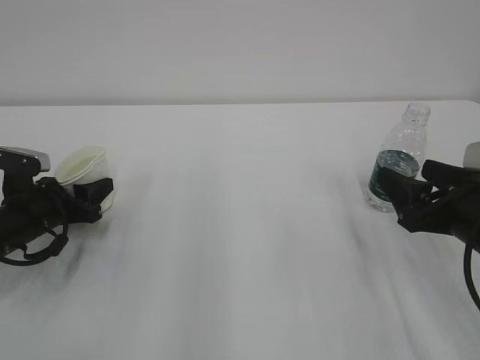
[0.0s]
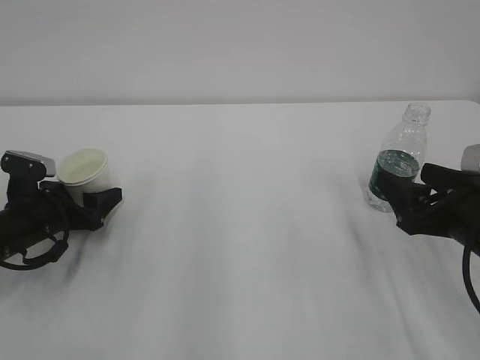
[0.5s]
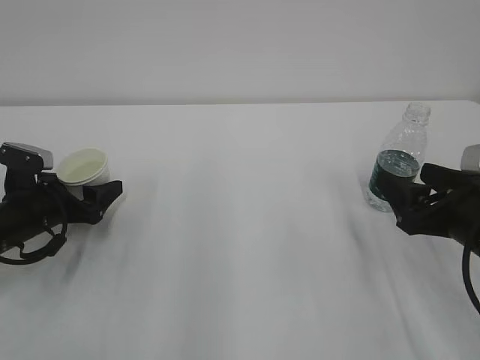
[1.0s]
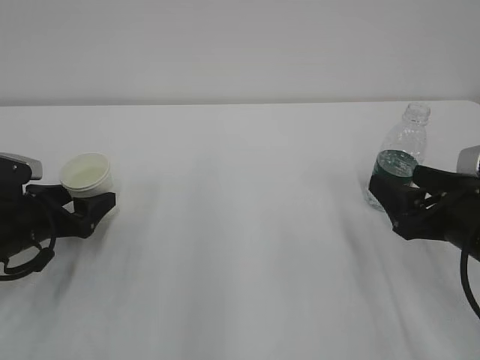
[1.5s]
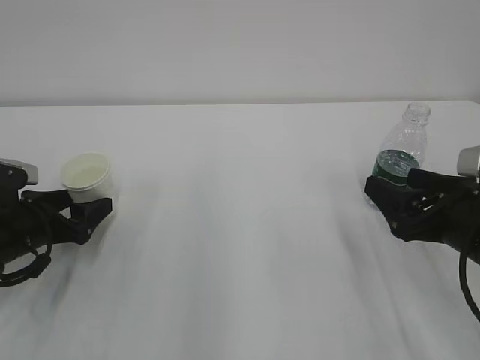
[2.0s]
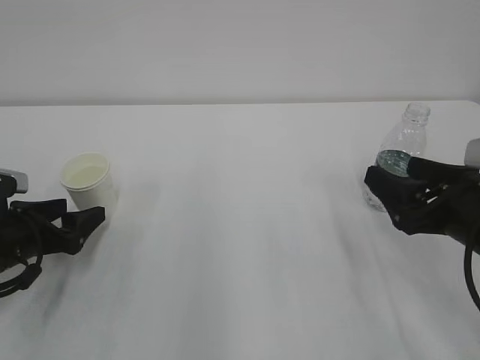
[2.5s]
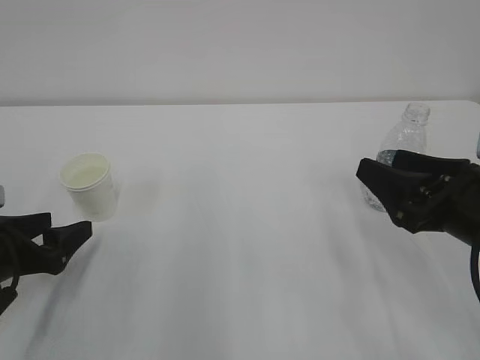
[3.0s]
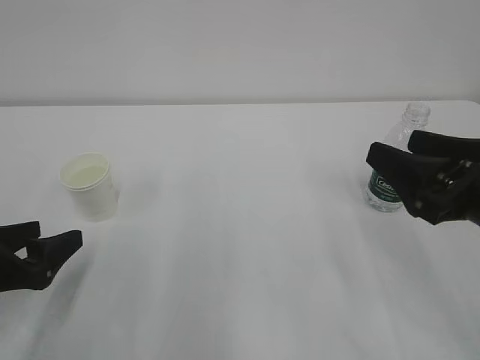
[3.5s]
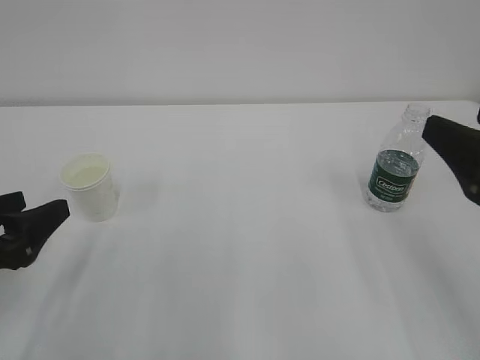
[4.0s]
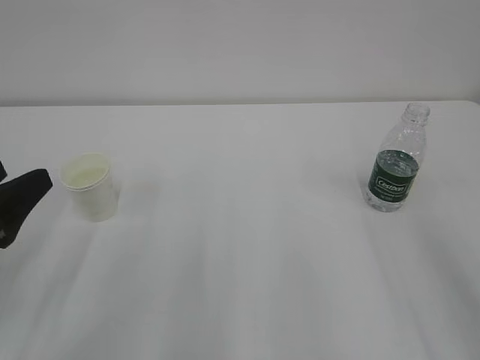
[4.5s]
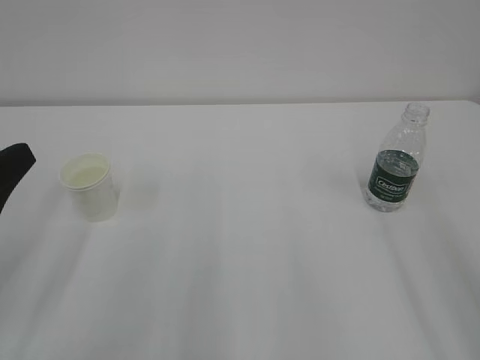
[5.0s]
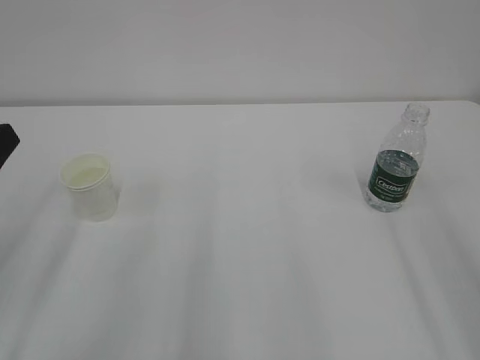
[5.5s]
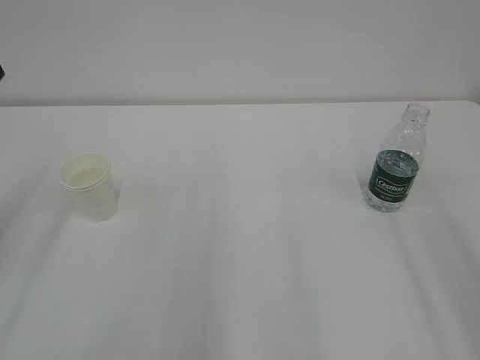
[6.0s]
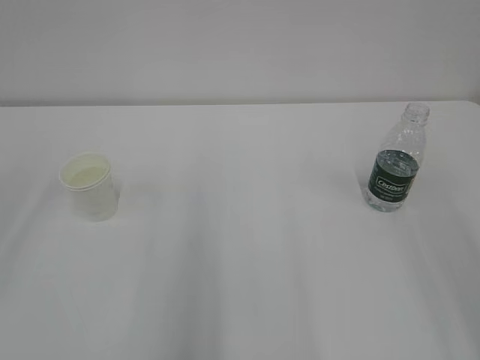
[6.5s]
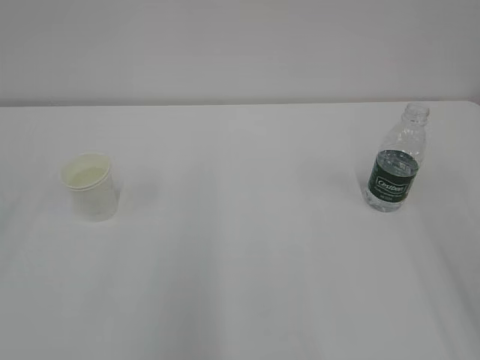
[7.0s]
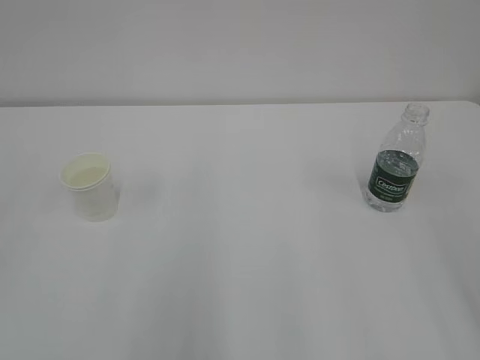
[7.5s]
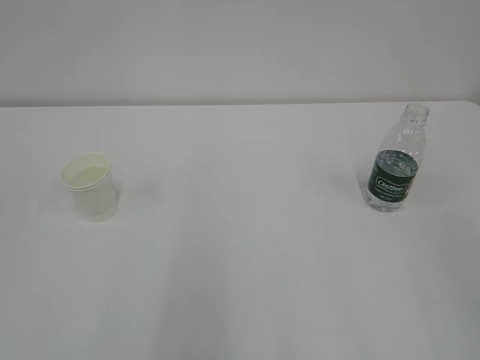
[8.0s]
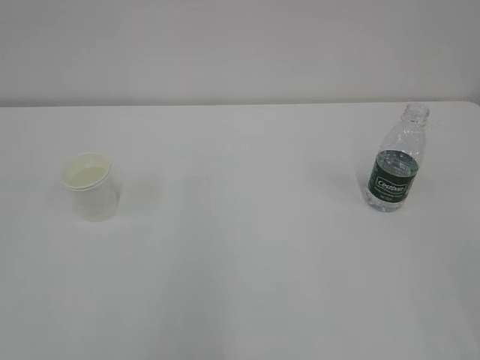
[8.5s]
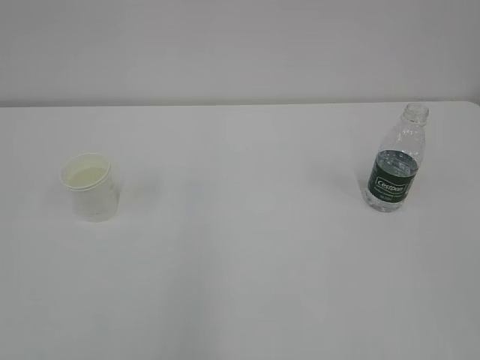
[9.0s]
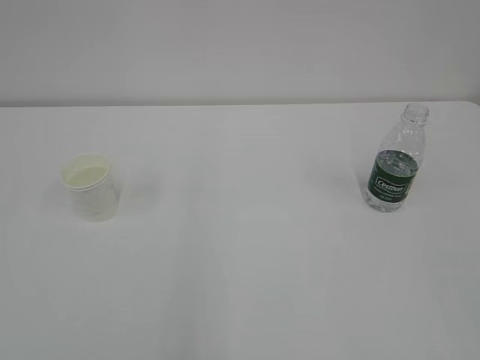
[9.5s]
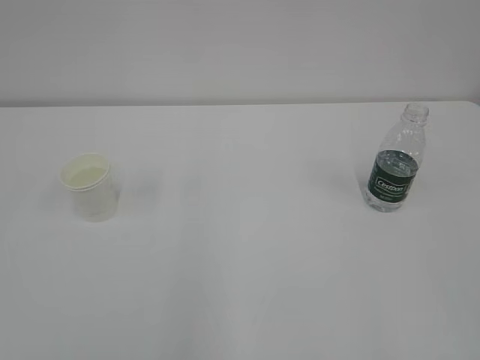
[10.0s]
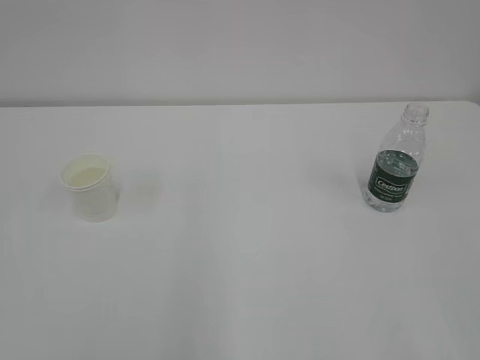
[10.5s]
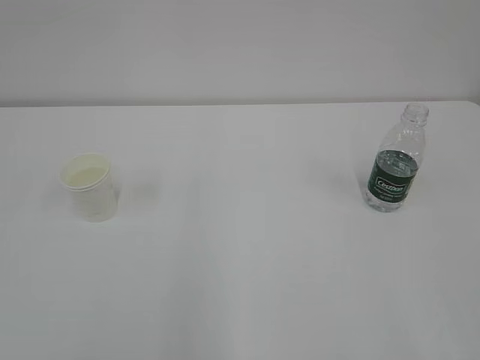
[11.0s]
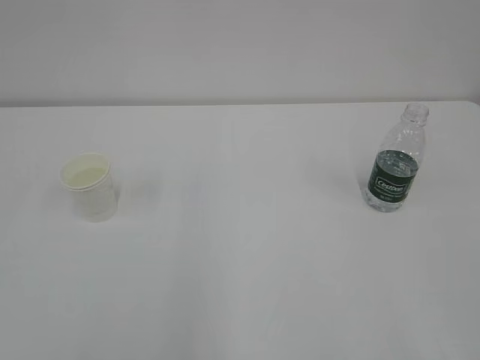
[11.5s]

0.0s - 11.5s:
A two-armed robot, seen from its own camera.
0.0s - 2.0s: The left gripper opens its fingers.
2.0s - 4.0s: The right gripper is displaced upward and backward by roughly 15 cm. The left gripper moves backward and upward, roughly 15 cm.
4.0s - 6.0s: The right gripper heads upward and backward, covering roughly 10 cm, while the left gripper goes approximately 10 cm upward.
